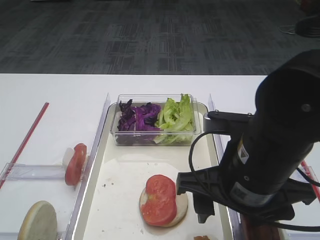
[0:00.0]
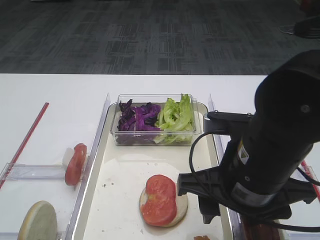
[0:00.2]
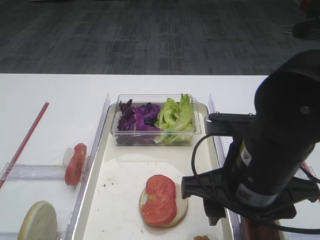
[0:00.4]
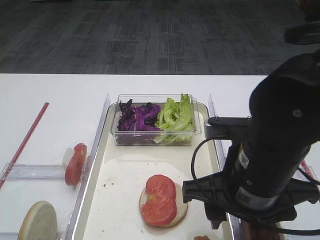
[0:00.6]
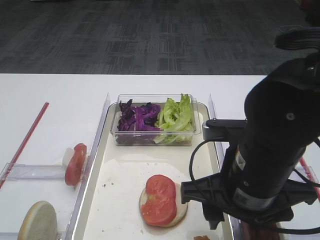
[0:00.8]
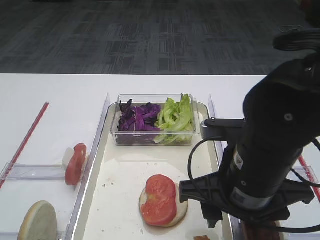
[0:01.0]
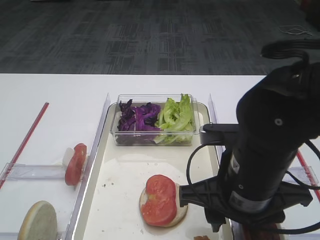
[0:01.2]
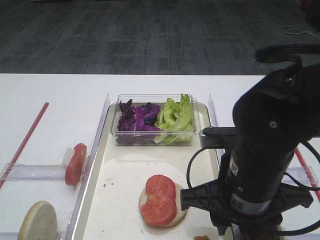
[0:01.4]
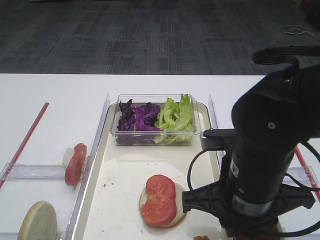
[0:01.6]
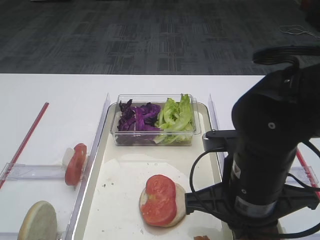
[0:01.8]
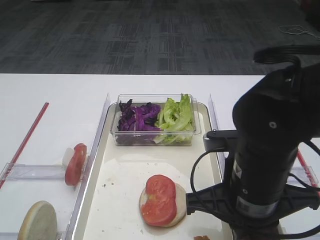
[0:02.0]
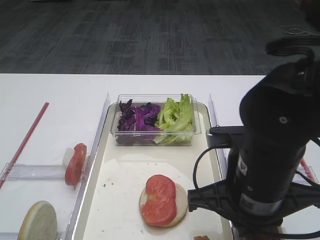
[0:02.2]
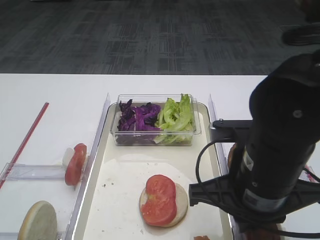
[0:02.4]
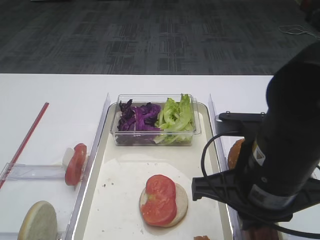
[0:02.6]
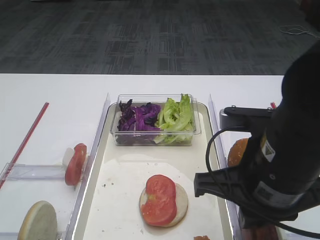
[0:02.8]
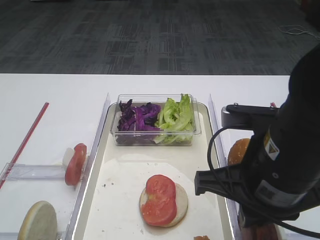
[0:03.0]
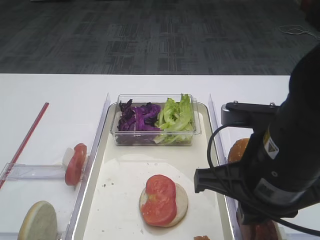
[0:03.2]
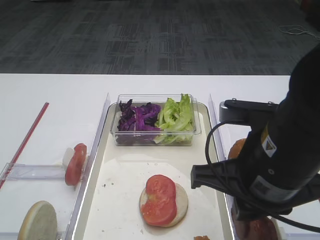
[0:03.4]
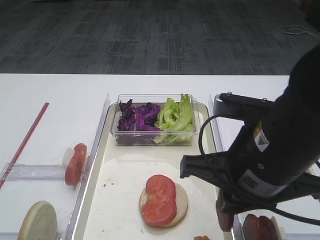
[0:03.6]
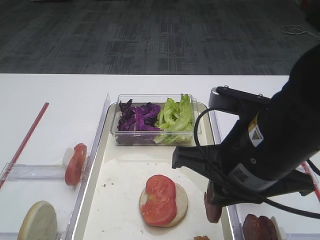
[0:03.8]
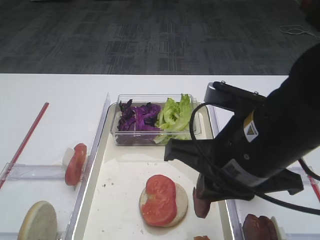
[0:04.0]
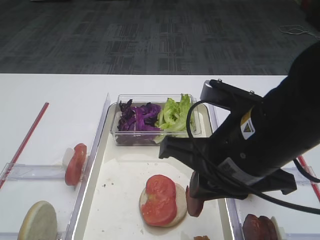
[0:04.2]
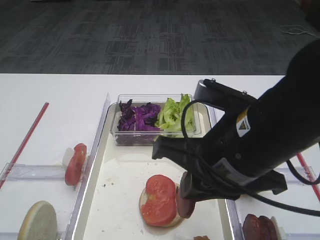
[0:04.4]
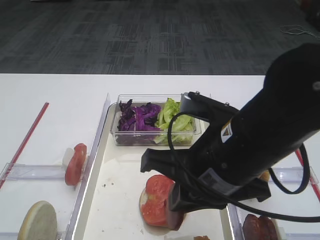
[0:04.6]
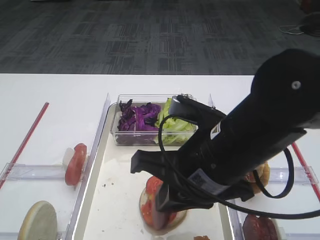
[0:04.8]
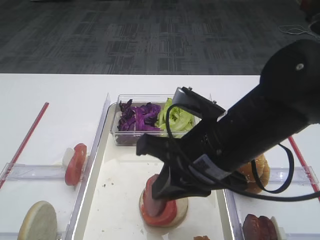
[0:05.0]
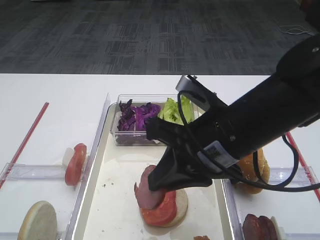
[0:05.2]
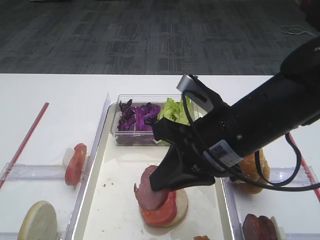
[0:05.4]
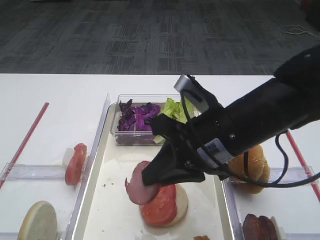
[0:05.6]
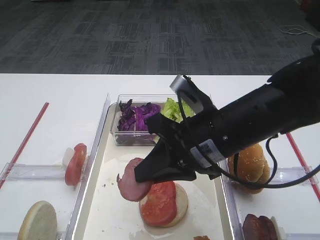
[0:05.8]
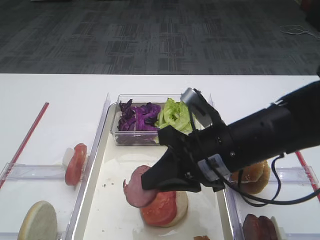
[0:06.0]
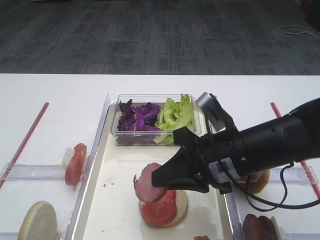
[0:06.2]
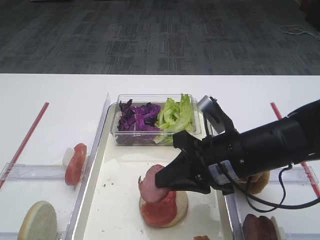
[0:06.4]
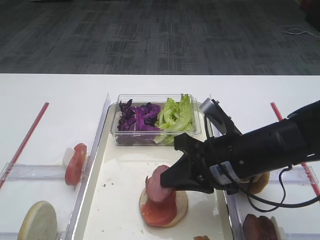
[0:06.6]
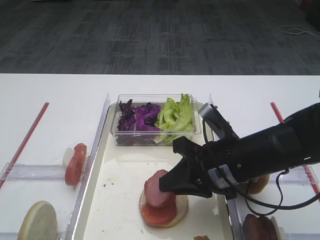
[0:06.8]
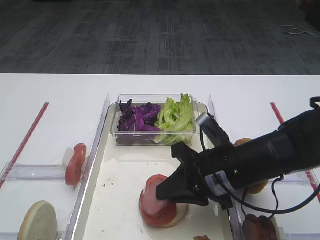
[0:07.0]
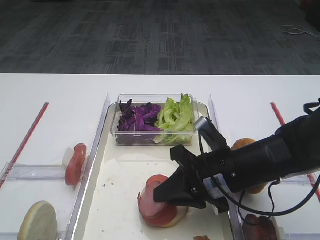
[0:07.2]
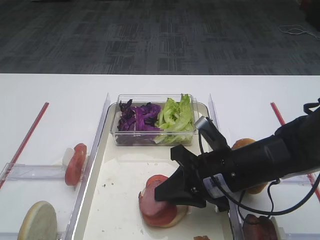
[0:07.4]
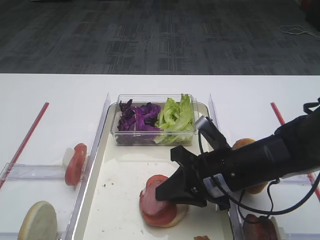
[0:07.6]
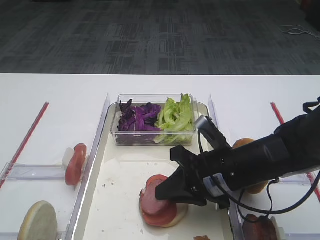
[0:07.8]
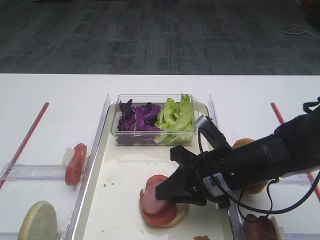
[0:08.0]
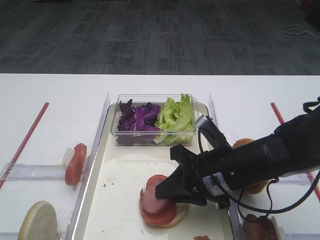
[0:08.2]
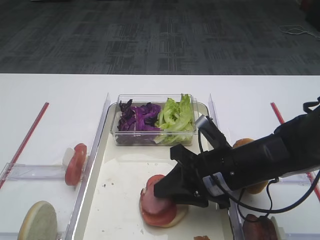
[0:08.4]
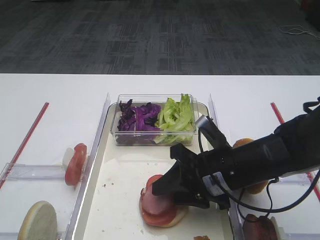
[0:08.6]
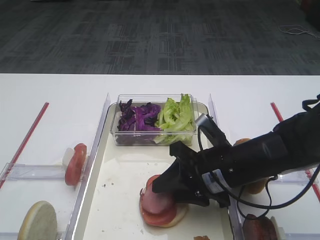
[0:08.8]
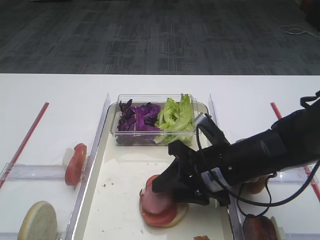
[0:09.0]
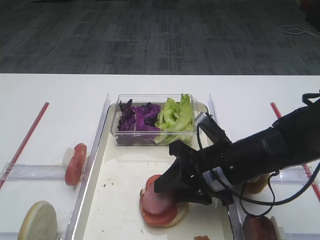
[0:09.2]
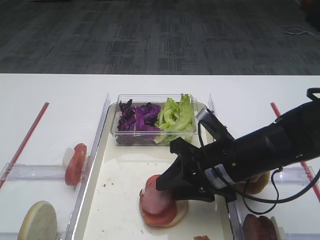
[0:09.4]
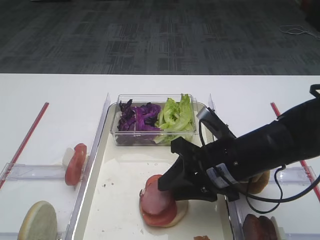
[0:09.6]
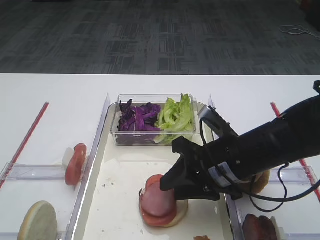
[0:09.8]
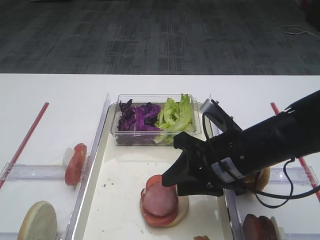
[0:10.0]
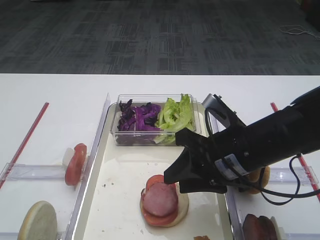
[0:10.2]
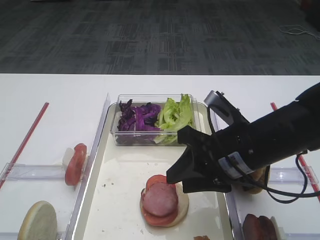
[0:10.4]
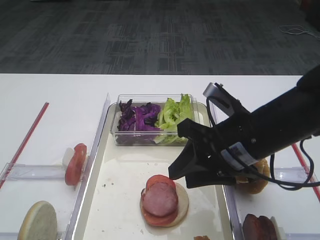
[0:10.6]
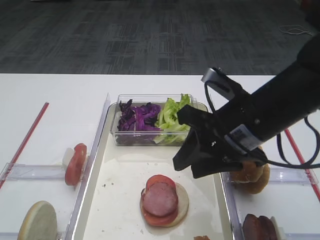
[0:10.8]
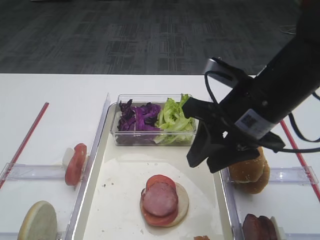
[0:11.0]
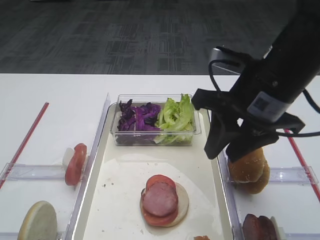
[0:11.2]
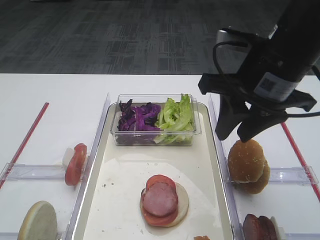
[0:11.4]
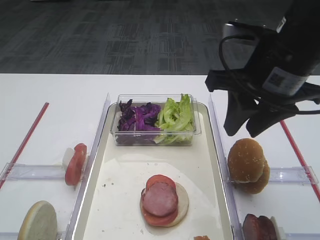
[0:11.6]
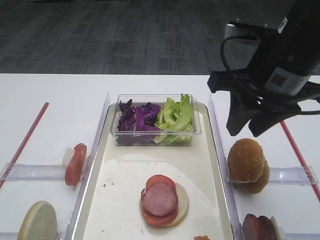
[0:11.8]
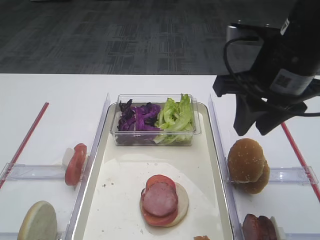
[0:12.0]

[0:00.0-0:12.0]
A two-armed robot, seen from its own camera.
Step, 0:00.0 to 0:03.2: Pick up the cutlet with the right gripper.
Step, 0:03.4 to 0:10.8: Place the cutlet on the tomato slice with the right gripper.
0:00.0 to 0:01.6: The right gripper closes.
0:01.6 to 0:03.0: The right gripper moves upward, some 5 cm.
0:04.4 to 0:06.0: The right gripper moves downward and forward, roughly 10 cm.
0:06.0 to 0:07.6: The right gripper moves downward, roughly 5 cm.
0:07.6 to 0:09.0: The right gripper opens.
0:09.0 to 0:10.4: The right gripper heads upward, covering some 5 cm.
0:10.4 to 0:12.0: The right gripper travels upward by some 10 cm.

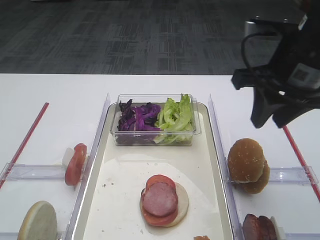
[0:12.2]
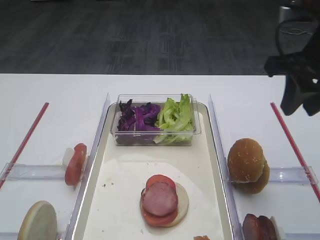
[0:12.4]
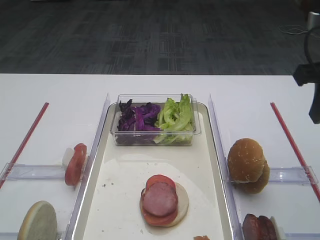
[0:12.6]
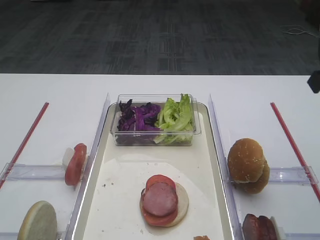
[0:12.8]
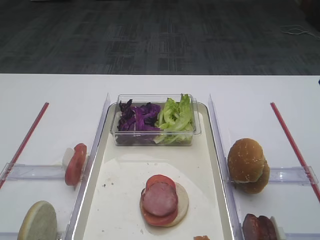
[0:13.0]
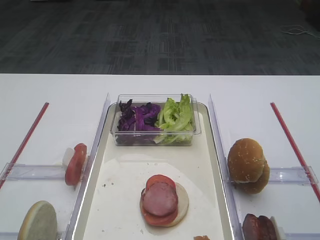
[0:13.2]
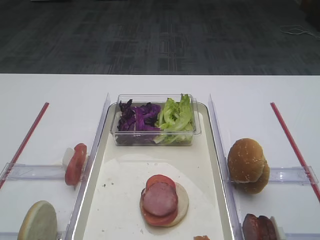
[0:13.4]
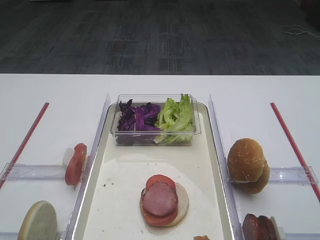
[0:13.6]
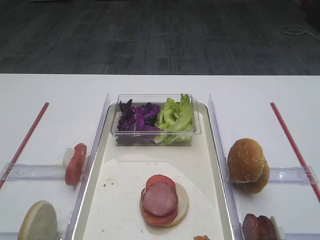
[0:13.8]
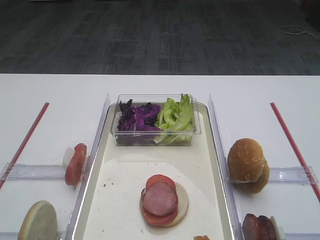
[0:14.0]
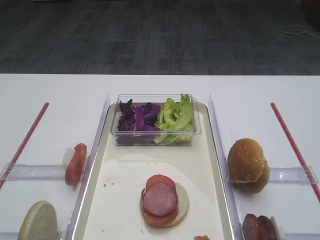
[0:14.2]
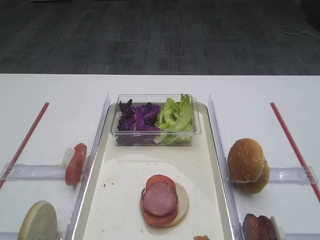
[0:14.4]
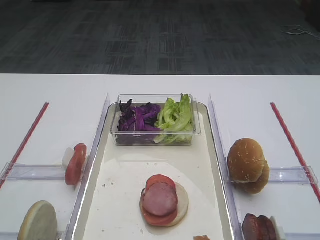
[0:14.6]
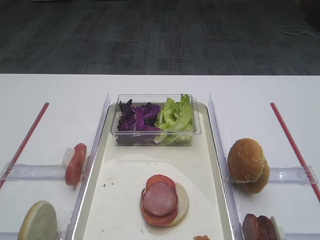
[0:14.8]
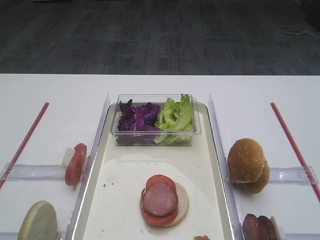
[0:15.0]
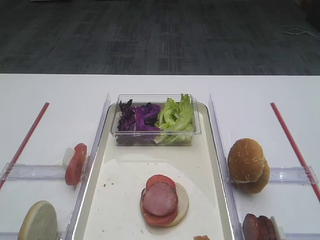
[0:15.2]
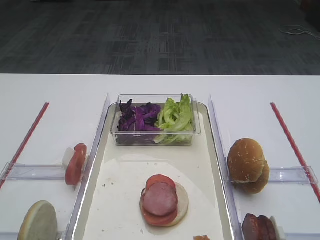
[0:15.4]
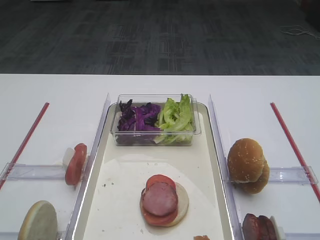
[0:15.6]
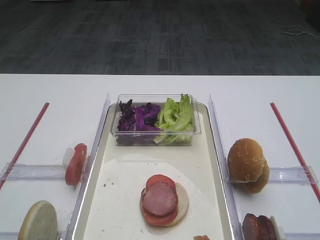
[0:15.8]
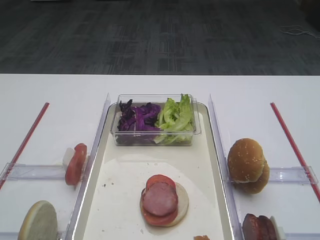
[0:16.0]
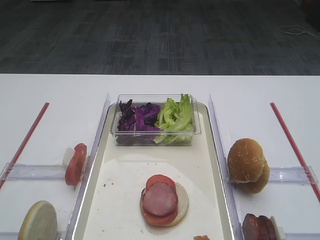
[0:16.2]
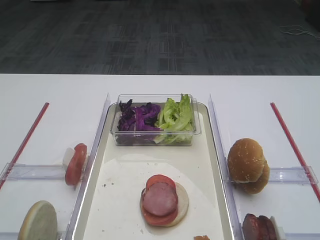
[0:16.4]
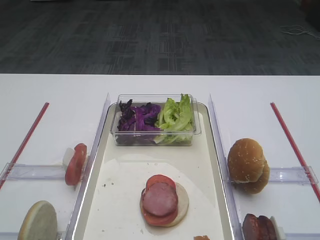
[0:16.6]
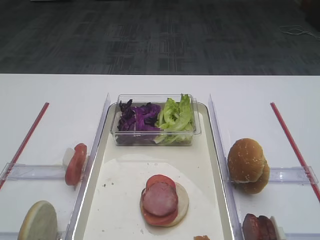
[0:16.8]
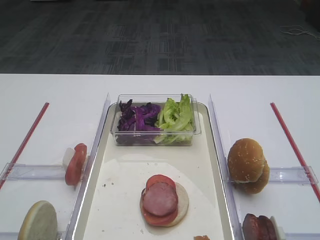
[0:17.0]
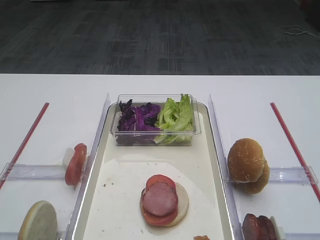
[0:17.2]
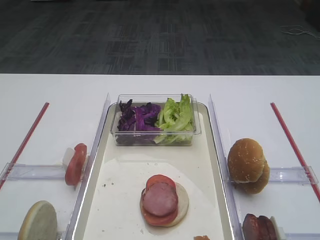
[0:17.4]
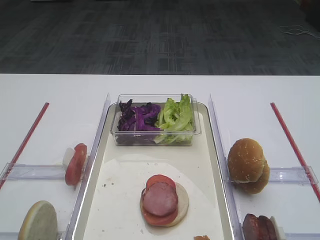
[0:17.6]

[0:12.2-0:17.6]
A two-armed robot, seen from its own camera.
0:12.2 to 0:13.6: The right gripper moves backward and to the right, about 20 cm.
0:16.2 to 0:17.6: Both grippers stay about where they are.

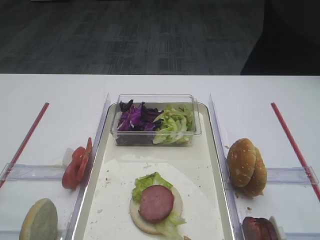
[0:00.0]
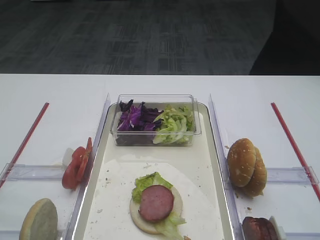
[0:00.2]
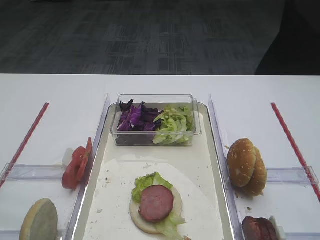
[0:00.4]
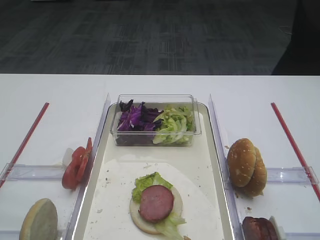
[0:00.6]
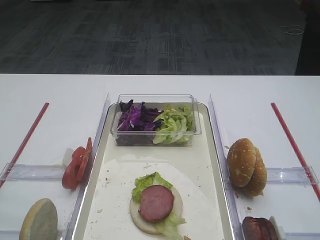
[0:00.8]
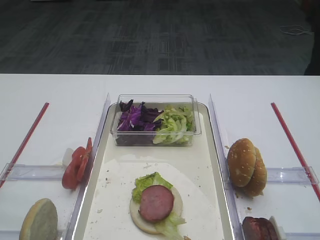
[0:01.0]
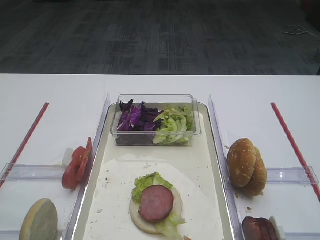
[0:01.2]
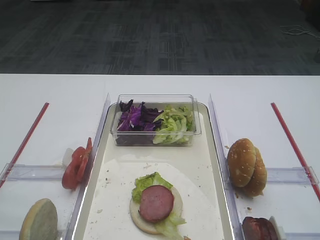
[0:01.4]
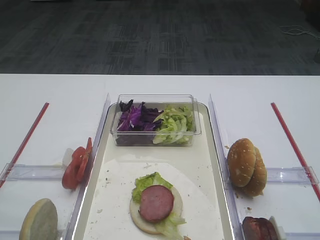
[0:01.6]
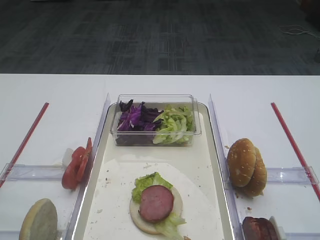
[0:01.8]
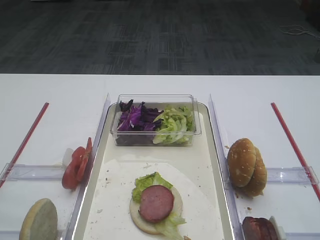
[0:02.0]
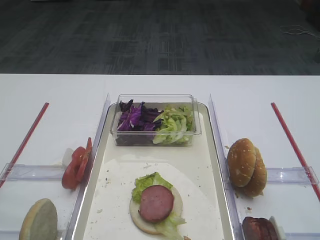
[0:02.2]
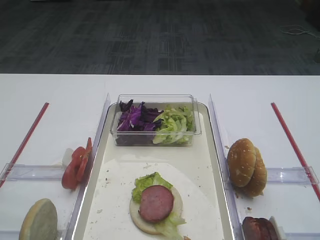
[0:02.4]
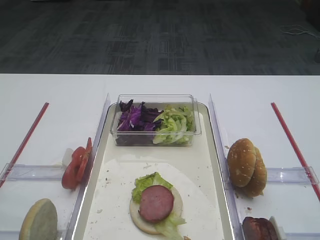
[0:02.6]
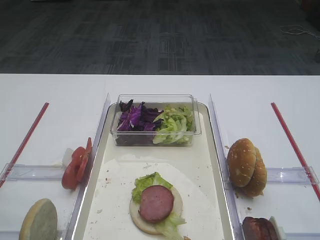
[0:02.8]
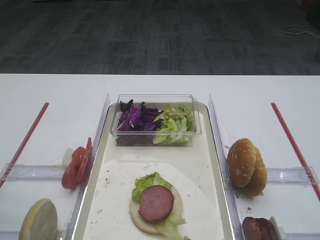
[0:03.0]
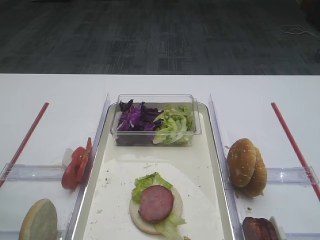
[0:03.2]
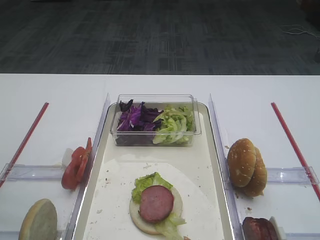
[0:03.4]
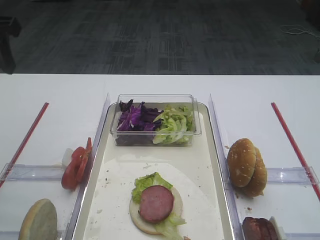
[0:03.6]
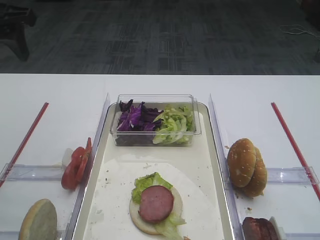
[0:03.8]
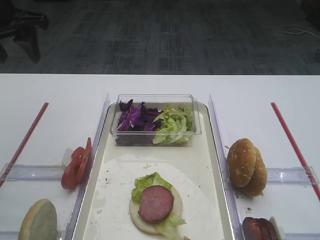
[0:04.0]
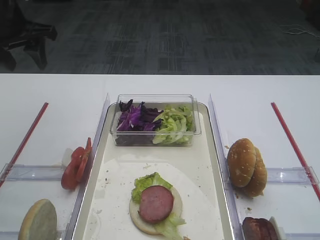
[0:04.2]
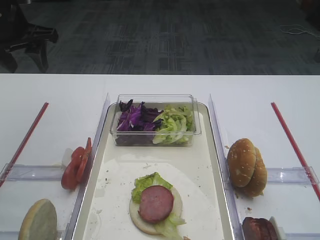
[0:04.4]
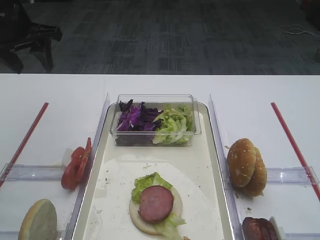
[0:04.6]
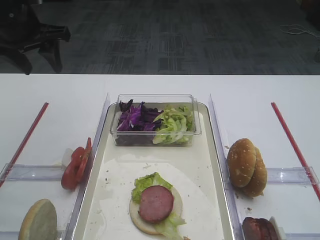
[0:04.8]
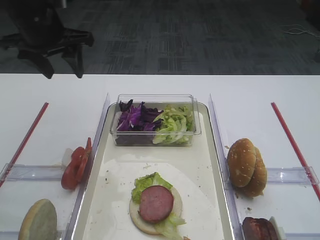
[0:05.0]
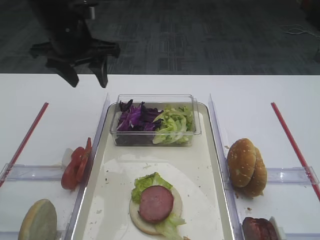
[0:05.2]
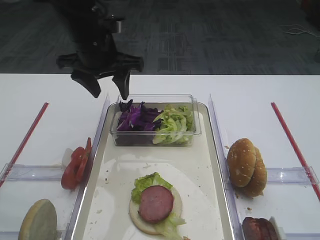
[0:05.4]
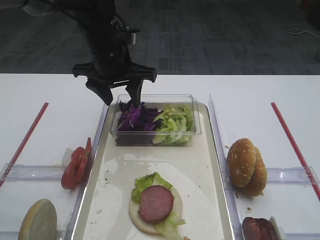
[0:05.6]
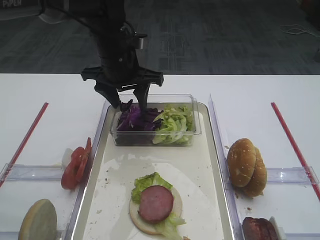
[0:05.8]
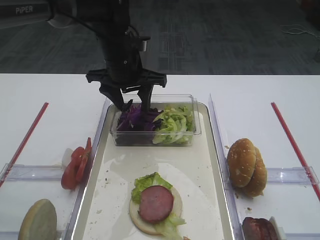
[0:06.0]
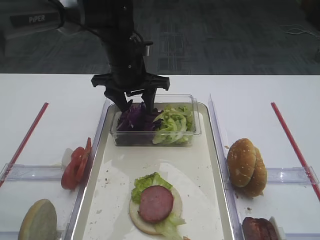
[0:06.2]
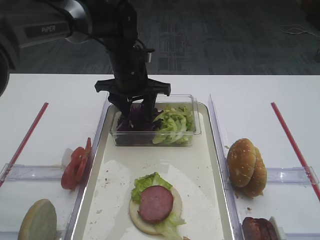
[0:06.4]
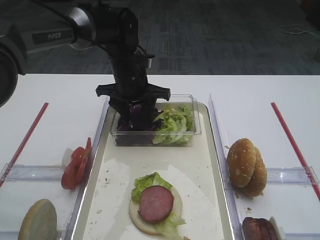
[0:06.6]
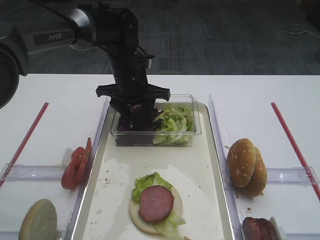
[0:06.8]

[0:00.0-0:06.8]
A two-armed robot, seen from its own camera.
0:02.8 to 0:04.0: The left gripper moves forward, roughly 30 cm.
0:04.0 to 0:05.4: The left gripper shifts approximately 15 cm to the right and downward.
0:05.4 to 0:06.8: The left gripper shifts approximately 10 cm downward and to the right.
